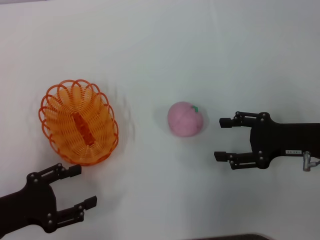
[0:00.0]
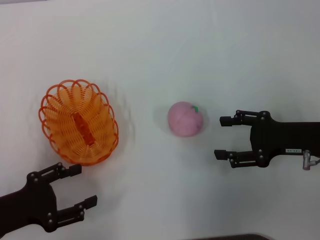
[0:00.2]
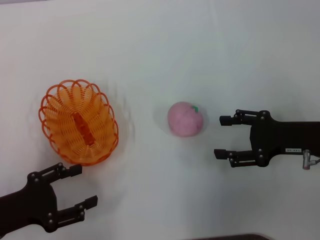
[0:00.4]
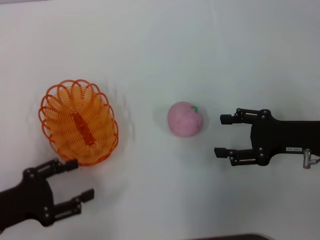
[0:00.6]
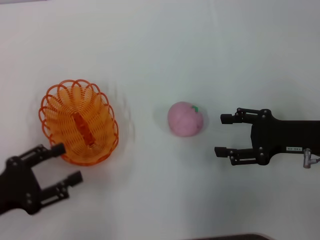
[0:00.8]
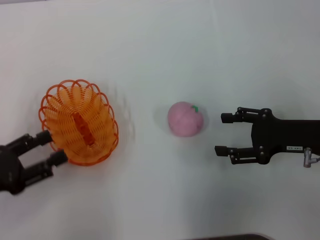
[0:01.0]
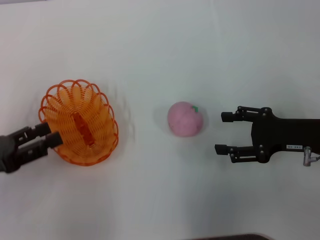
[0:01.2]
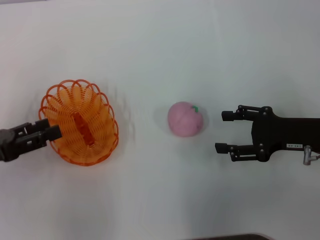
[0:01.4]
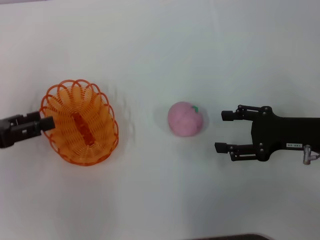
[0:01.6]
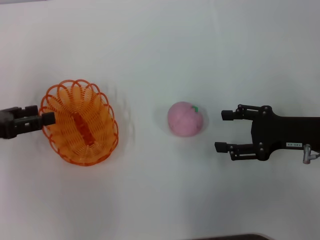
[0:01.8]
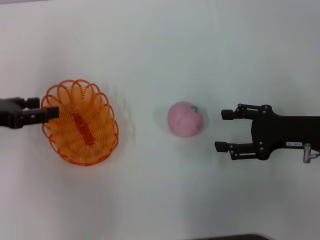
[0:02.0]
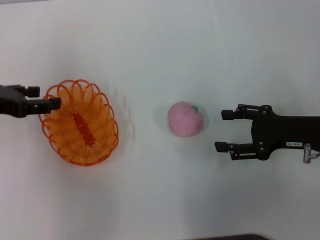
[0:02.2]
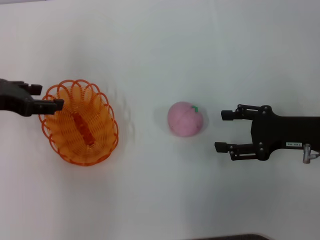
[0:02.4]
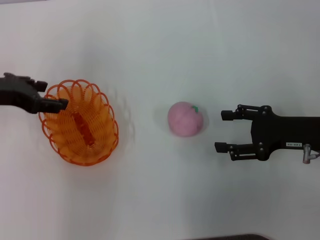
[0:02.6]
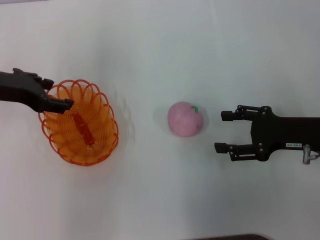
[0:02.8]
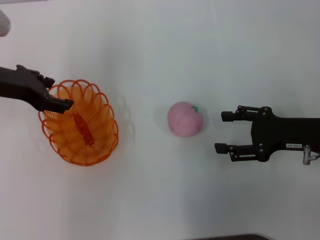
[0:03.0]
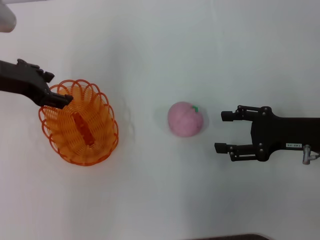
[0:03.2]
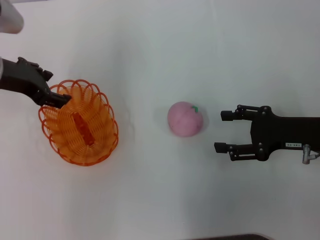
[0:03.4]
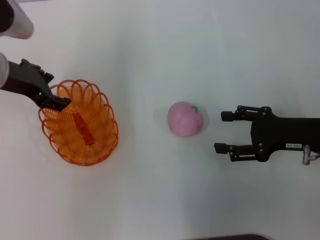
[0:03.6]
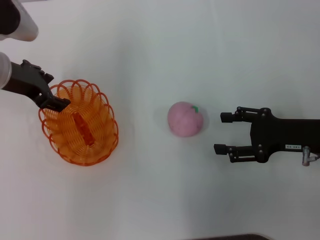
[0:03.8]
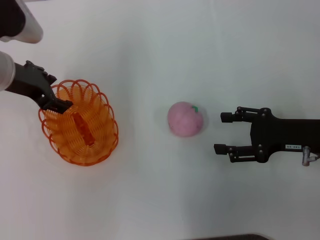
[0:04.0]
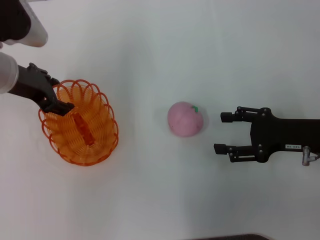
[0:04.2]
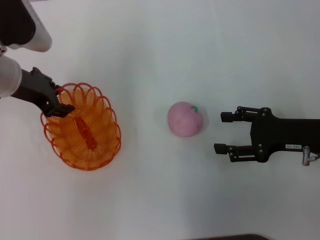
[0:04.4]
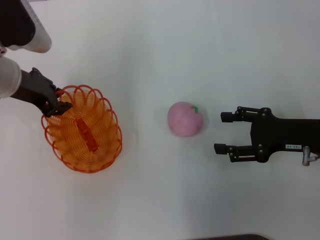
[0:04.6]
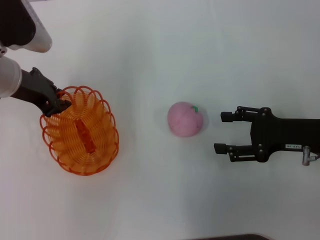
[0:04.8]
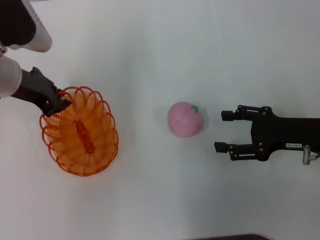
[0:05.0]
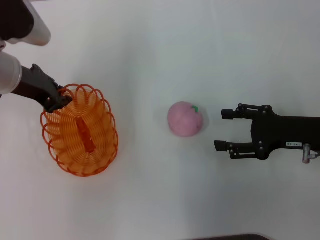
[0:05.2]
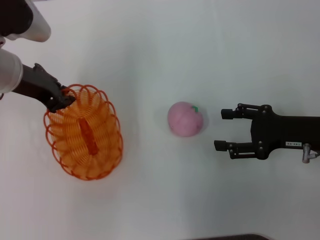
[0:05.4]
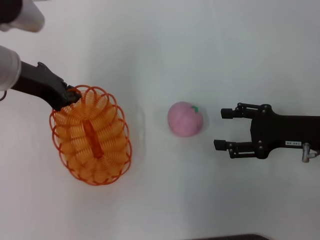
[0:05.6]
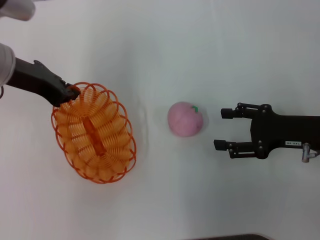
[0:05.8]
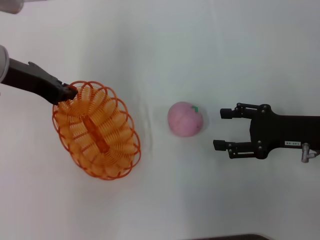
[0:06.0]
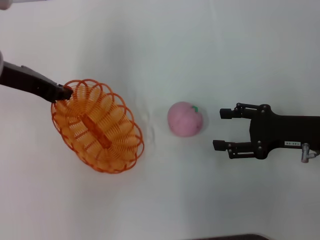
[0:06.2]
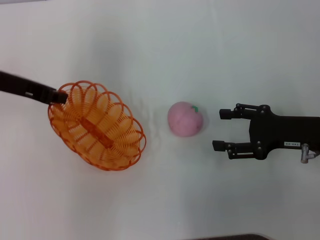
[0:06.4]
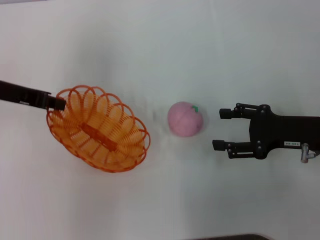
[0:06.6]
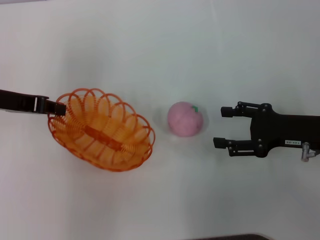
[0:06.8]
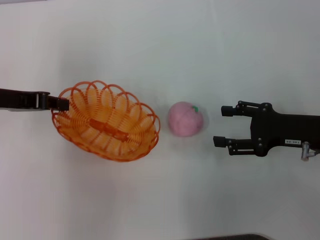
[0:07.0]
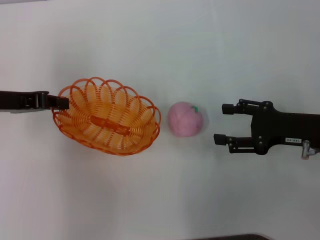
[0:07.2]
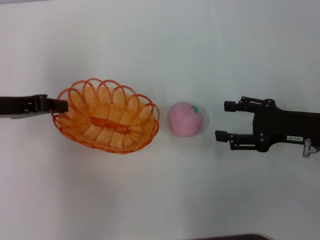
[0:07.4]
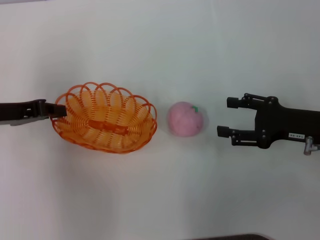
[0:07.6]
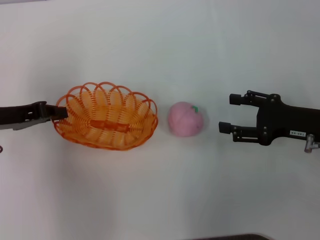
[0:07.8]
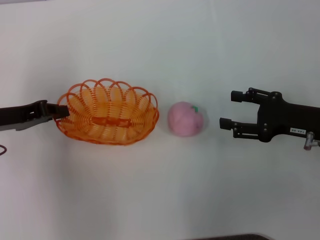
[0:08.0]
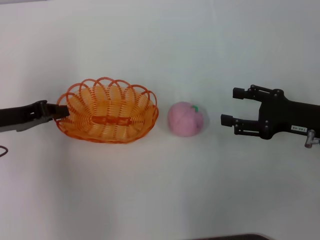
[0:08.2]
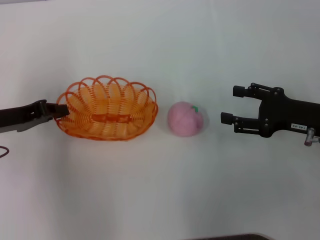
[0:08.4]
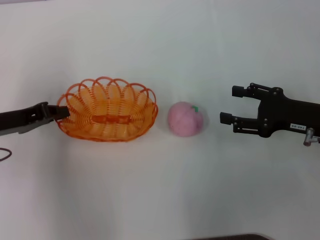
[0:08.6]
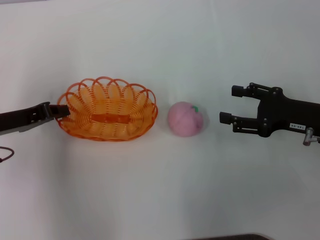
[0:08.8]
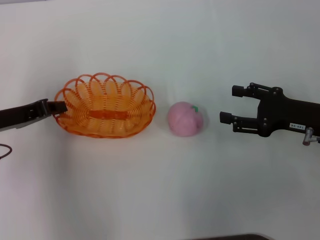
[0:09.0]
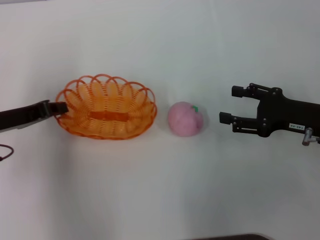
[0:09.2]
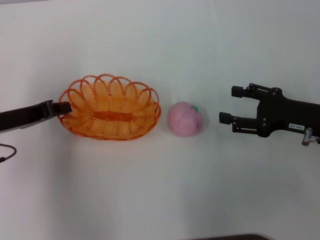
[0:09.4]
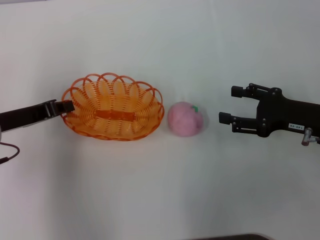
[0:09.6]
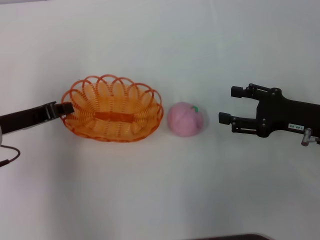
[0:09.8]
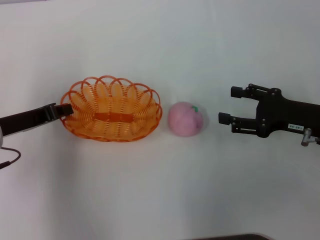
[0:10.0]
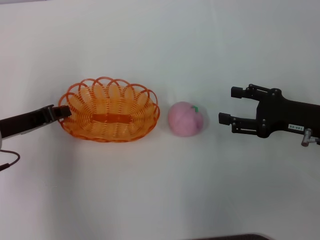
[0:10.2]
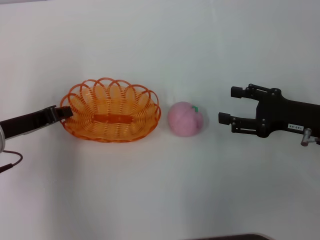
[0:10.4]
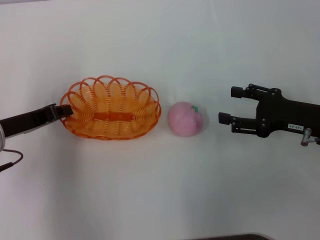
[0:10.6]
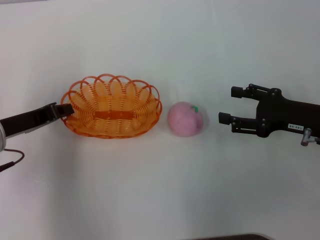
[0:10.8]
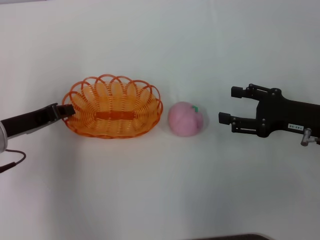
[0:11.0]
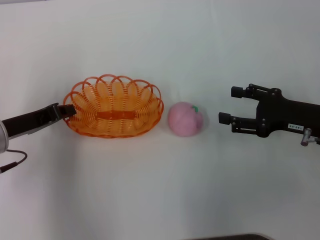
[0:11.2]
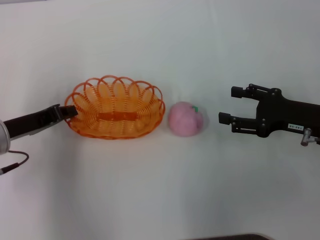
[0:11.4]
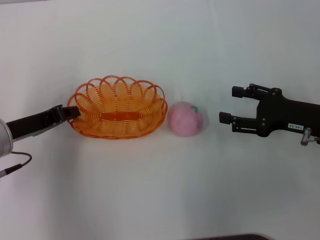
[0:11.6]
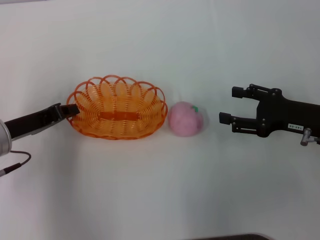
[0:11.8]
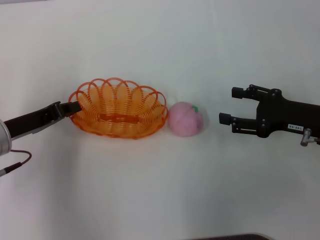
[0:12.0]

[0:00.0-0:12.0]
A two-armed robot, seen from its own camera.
Step, 0:00.0 to 0:06.0: Pick up the basket with the left gripper.
0:00.0 to 0:01.6: The left gripper shifts approximately 10 cm forward and upward.
0:01.6 to 0:03.0: The left gripper moves forward, to the right and upward, about 15 cm.
0:03.0 to 0:04.4: The grippers move only a little.
0:04.4 to 0:06.0: The left gripper closes its fingers.
0:06.0 to 0:07.6: The left gripper moves backward, to the left and downward, about 10 cm.
0:07.6 to 0:12.0: The grippers make only small movements.

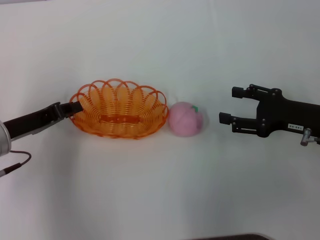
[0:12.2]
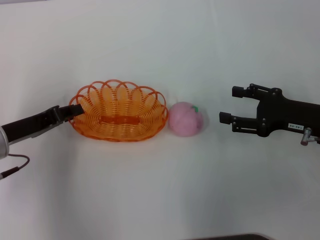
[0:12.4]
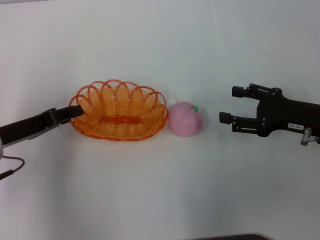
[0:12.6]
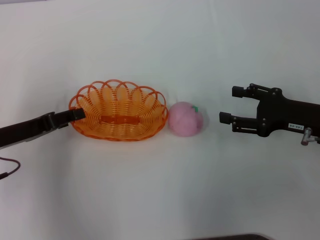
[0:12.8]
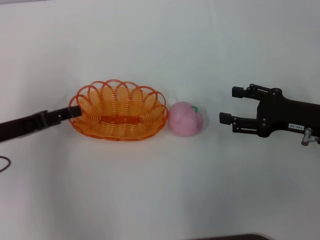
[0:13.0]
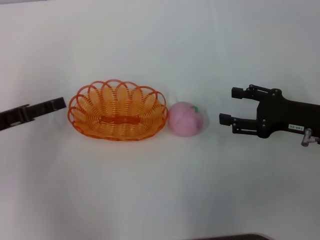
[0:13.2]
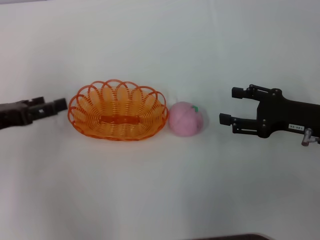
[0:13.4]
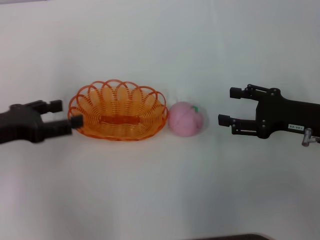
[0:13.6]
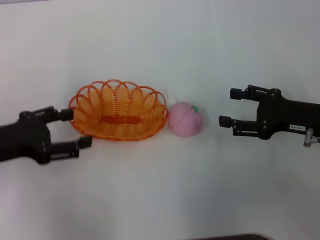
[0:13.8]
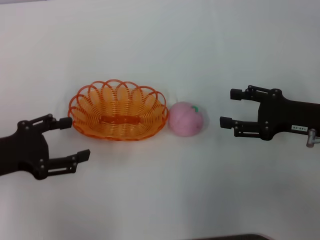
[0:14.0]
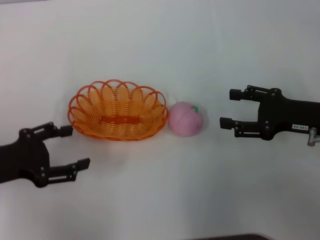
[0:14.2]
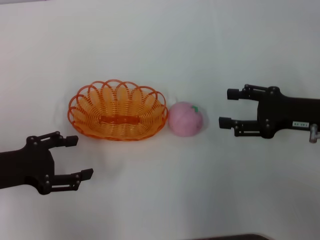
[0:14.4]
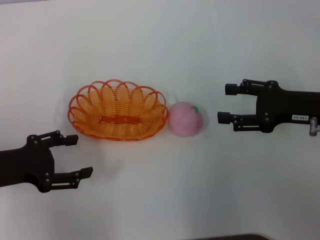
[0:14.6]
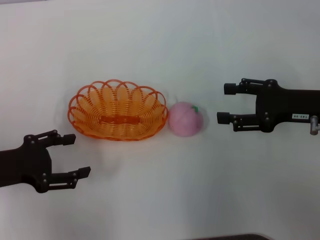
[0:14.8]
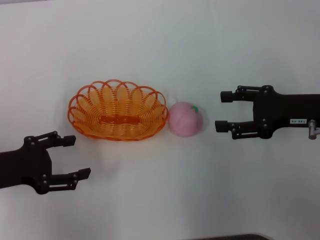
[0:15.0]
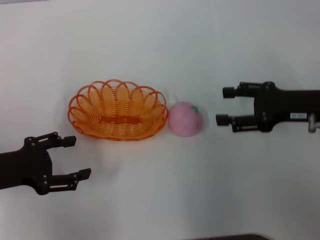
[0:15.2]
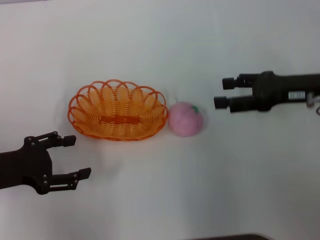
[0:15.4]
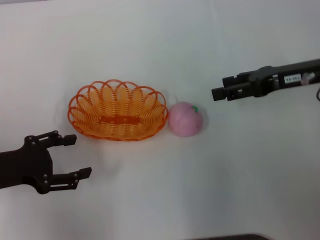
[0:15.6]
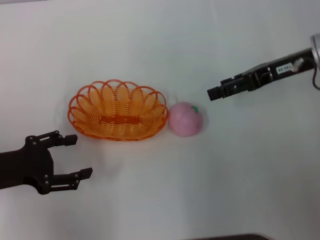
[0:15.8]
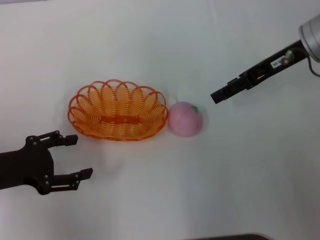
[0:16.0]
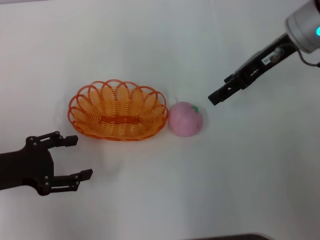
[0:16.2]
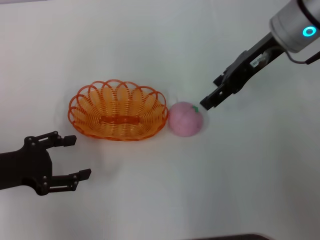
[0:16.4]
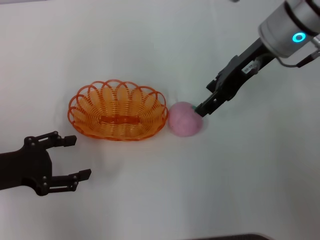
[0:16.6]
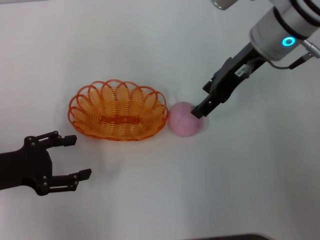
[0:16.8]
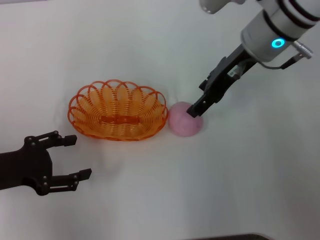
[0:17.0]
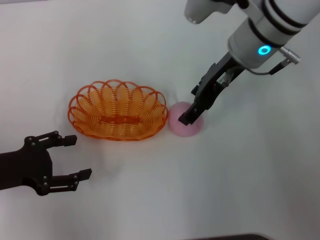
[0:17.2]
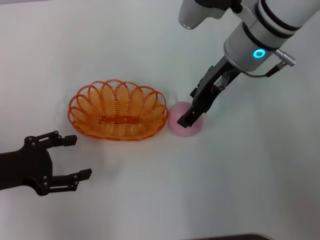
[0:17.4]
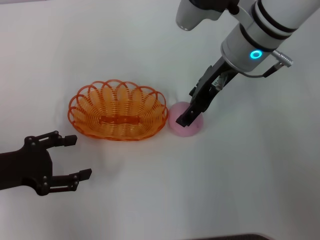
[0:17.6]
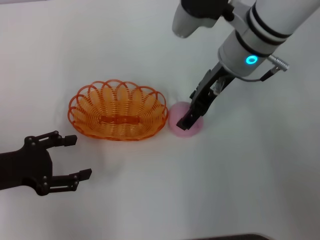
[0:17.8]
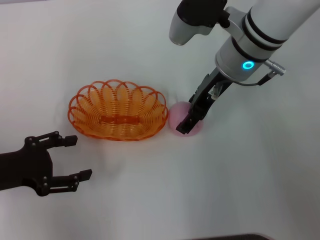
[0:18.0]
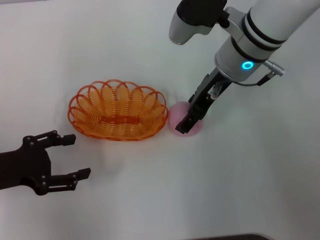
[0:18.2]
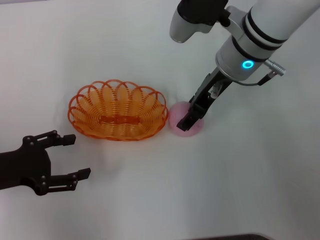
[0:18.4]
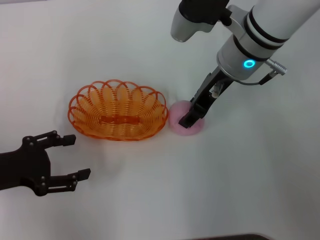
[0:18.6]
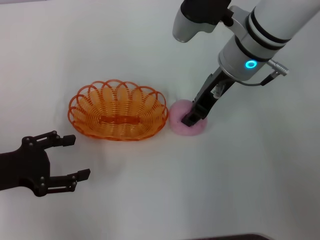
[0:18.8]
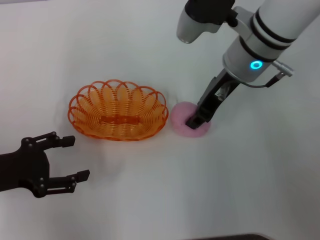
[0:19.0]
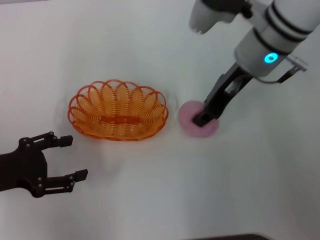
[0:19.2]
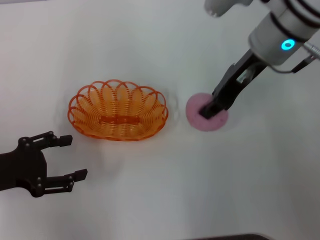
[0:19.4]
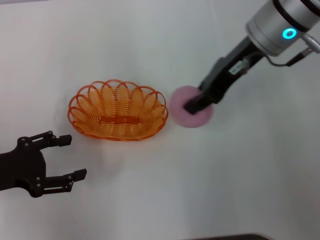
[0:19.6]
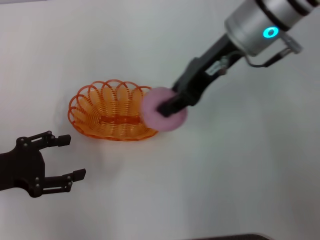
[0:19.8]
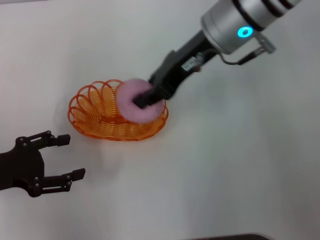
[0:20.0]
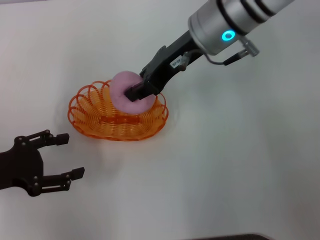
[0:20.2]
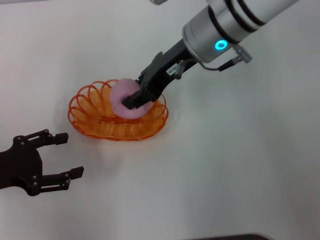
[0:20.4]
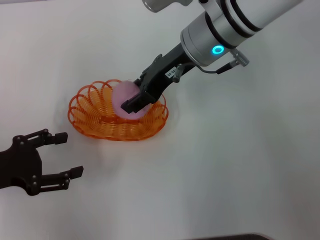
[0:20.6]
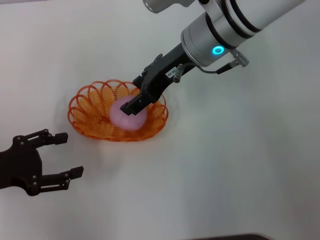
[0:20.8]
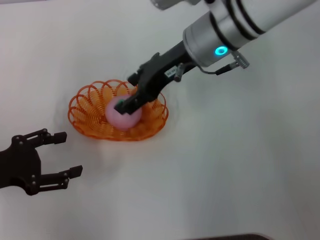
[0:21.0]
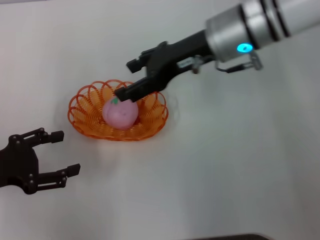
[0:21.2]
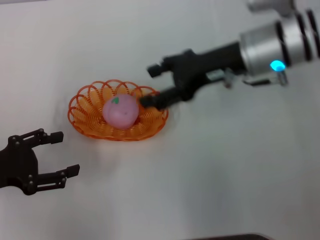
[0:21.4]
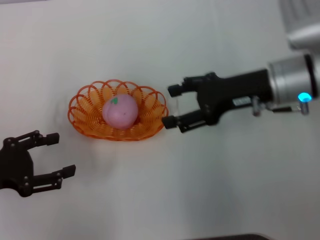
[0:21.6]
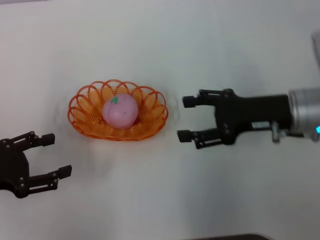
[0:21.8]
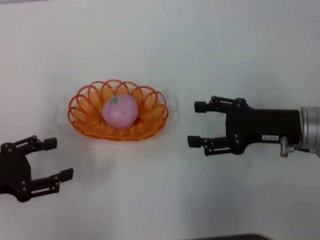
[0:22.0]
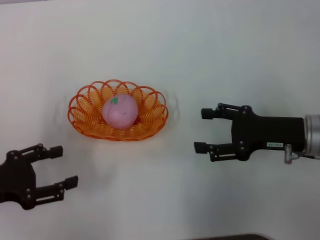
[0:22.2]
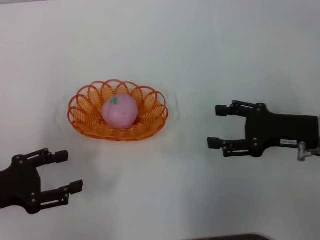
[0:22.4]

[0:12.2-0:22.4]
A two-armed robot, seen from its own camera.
Step, 0:13.4 to 0:19.6: Pick up the peach with the right gripper.
Step, 0:19.8 to 0:21.0: Place the peach into the basket with the right gripper.
0:12.2 to 0:13.6: The left gripper ends up some 5 cm from where it was, and opens its fingers.
0:15.2 to 0:16.6: The right gripper heads to the left, upward and forward, covering roughly 15 cm.
0:16.6 to 0:18.0: The right gripper is displaced to the left by some 5 cm.
0:18.0 to 0:19.4: The right gripper ends up approximately 5 cm from where it was, and closes its fingers.
0:19.4 to 0:21.0: The right gripper heads to the left, covering approximately 5 cm, and opens.
0:21.0 to 0:22.4: The right gripper goes some 25 cm to the right, backward and downward.
